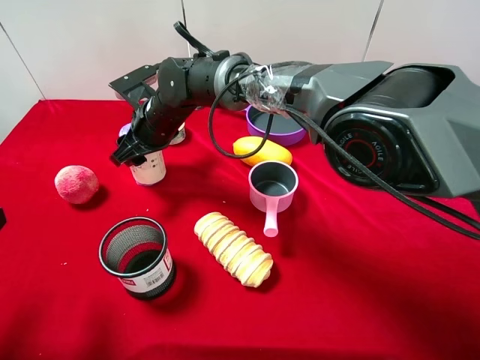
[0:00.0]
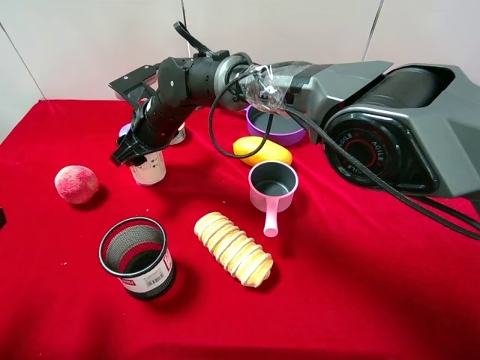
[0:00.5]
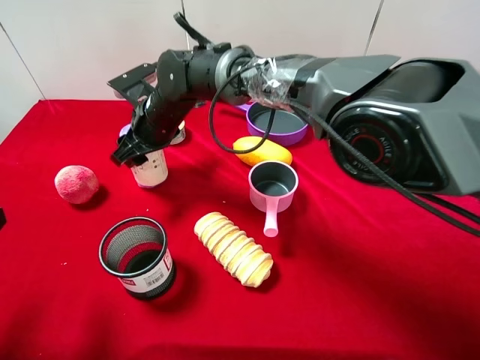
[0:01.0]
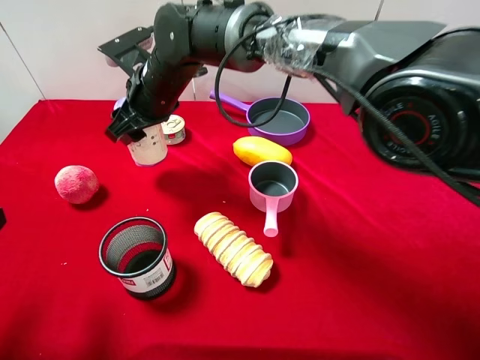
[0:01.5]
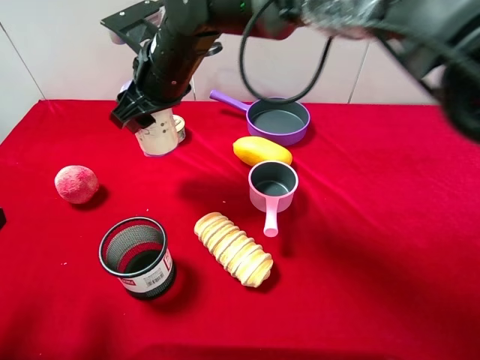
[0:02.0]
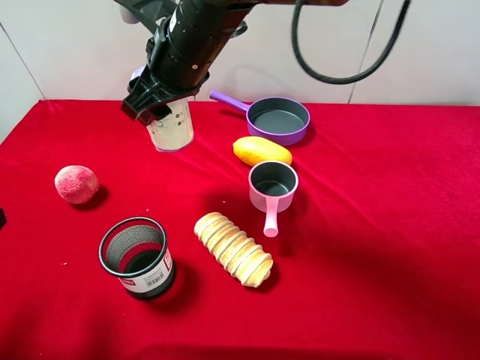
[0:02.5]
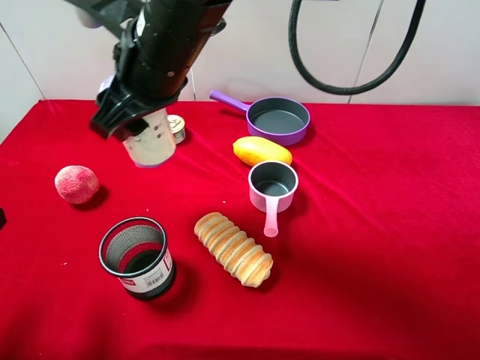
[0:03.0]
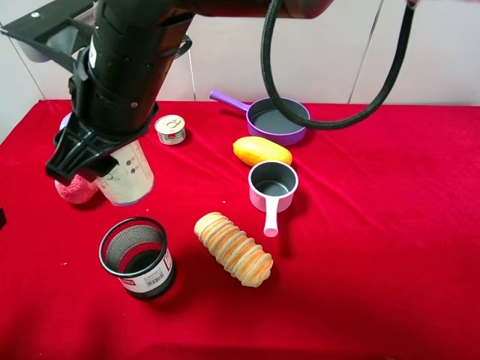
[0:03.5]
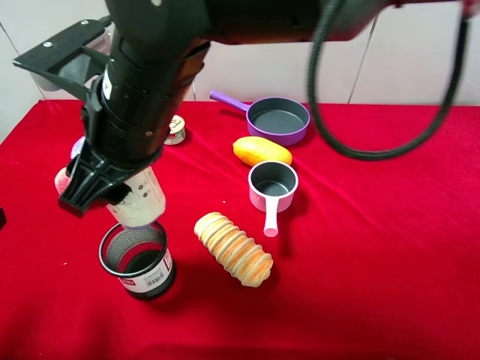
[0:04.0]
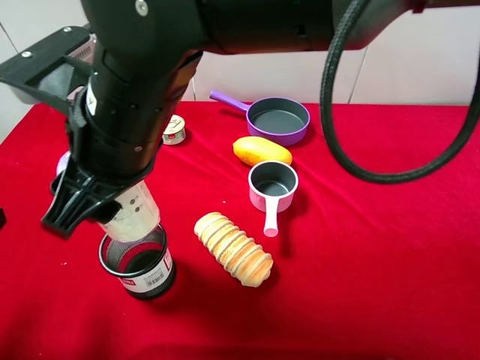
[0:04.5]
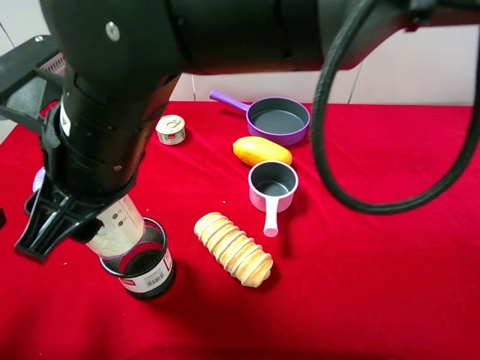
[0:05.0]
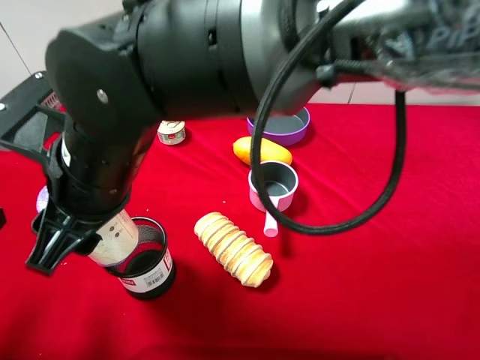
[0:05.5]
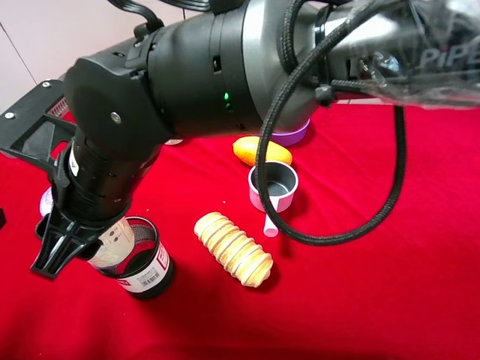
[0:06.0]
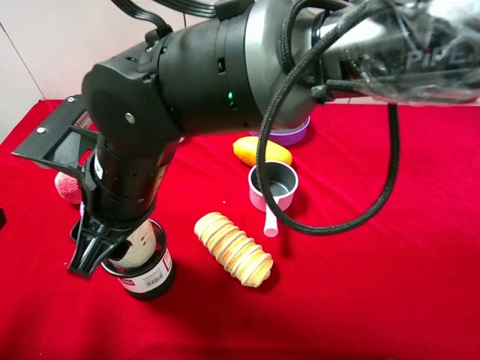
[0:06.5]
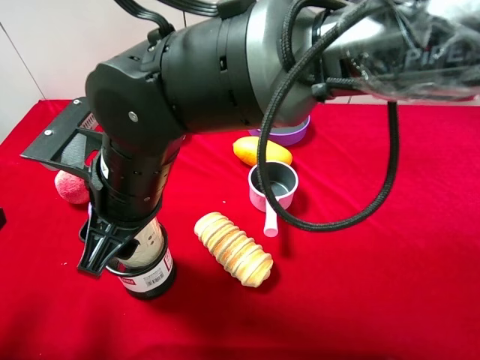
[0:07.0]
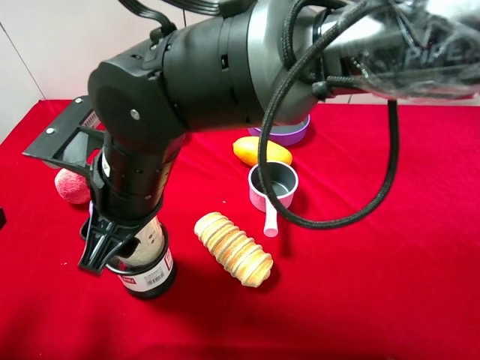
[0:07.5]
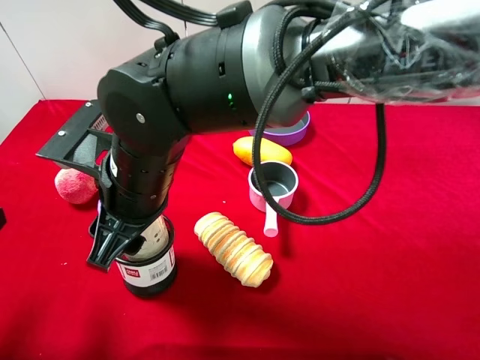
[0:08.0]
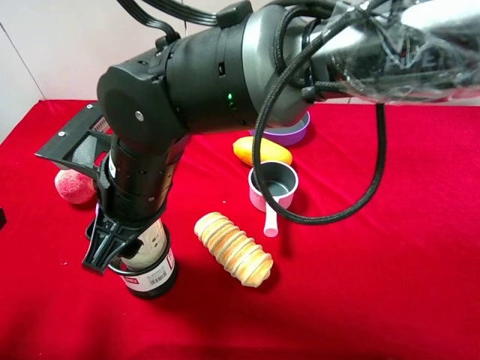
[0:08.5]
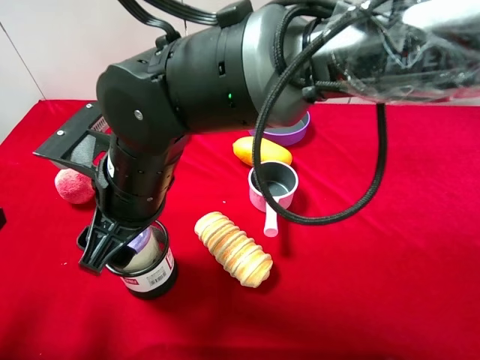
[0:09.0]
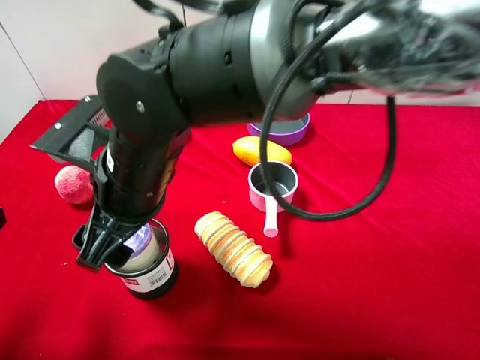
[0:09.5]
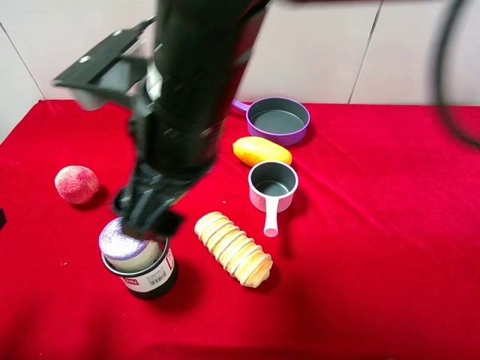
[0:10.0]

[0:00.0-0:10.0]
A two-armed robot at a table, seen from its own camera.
Task of the whole recording: pick up an item with a gripper and place it in a random container on the desktop.
0:00.0 to 0:02.0: The right gripper moves upward, some 10 cm.
0:02.0 to 0:04.0: The right gripper travels backward by approximately 15 cm.
0:04.0 to 0:06.0: The right gripper ends up roughly 5 cm from where it was.
0:08.0 to 0:10.0: The right gripper heads upward and to the right, covering roughly 10 cm, and opens its fingers.

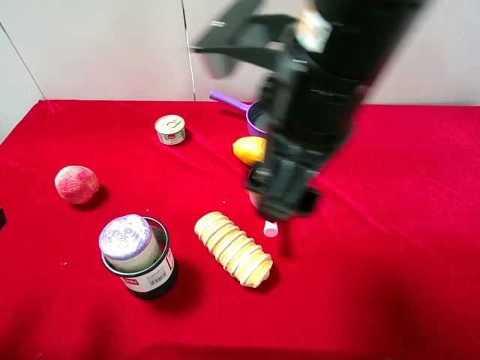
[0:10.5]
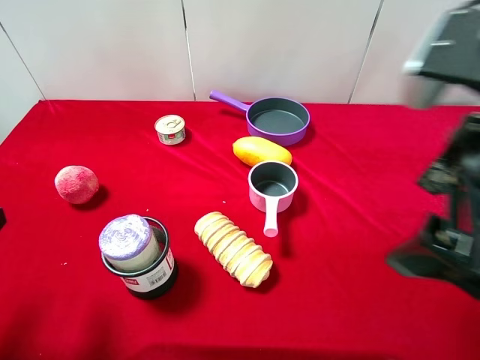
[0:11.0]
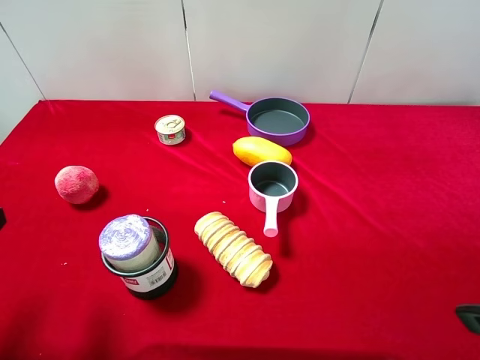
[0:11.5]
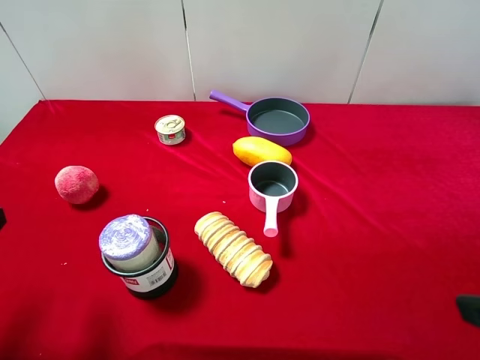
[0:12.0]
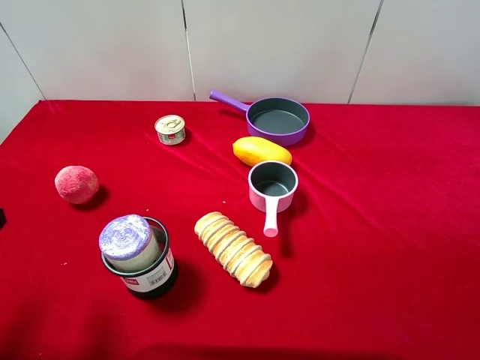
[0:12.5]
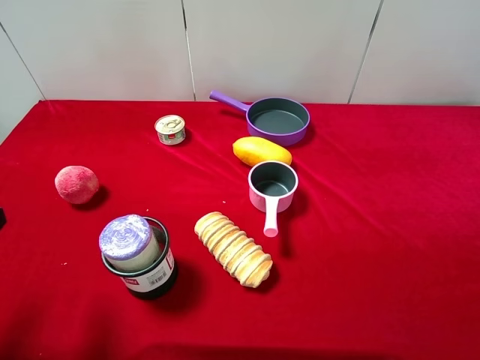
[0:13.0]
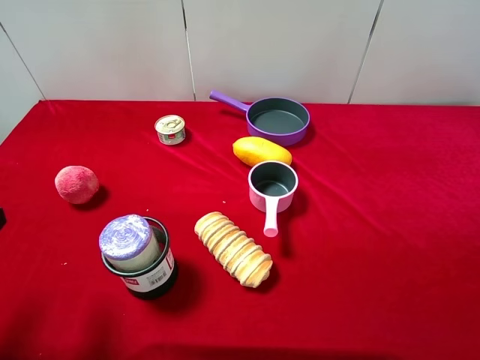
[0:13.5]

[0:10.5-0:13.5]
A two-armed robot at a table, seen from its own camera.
Task of the whole recording: pick up an item with a gripper and place it in a random container on the desktop.
0:10.5 to 0:12.0: The right gripper moves to the right and backward, approximately 25 cm.
